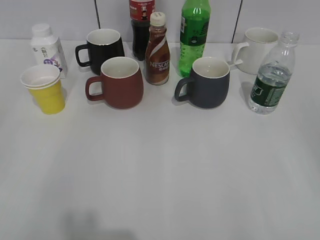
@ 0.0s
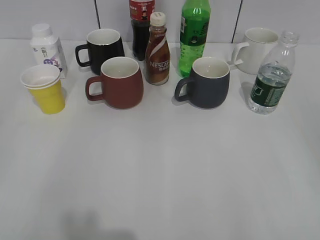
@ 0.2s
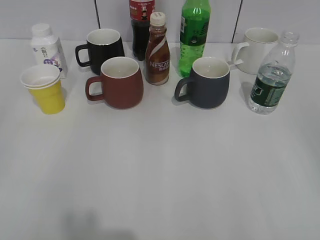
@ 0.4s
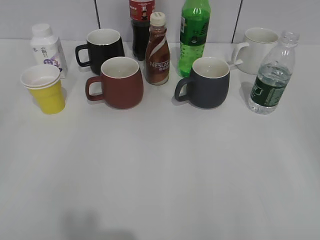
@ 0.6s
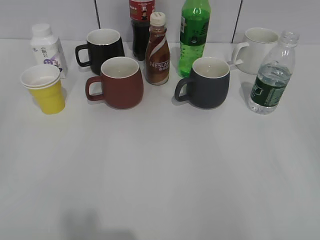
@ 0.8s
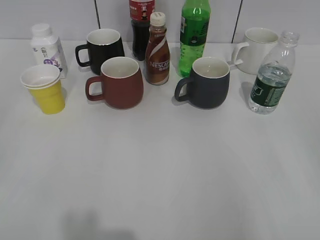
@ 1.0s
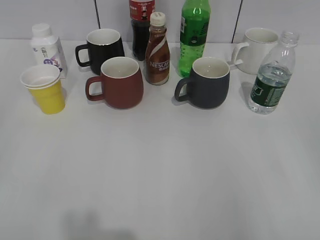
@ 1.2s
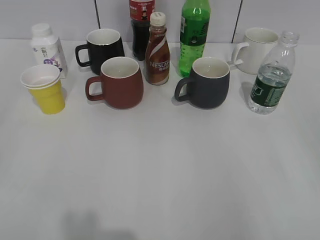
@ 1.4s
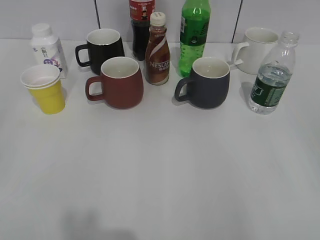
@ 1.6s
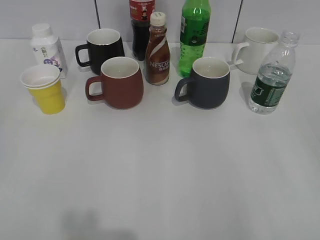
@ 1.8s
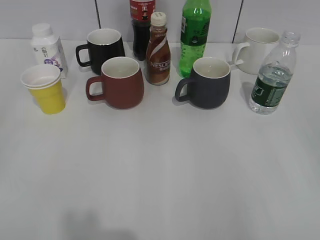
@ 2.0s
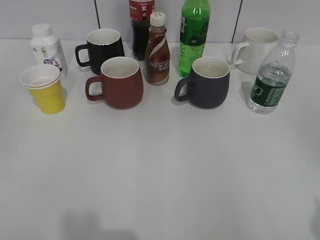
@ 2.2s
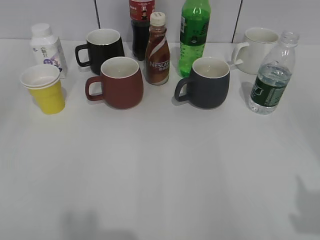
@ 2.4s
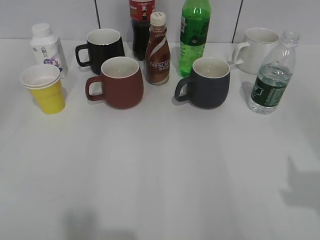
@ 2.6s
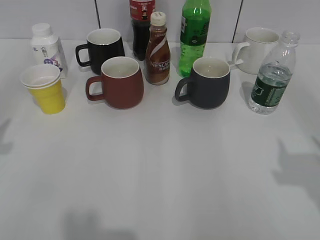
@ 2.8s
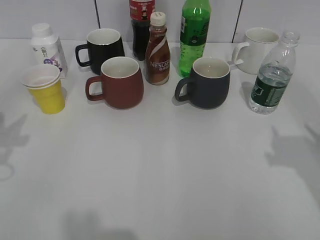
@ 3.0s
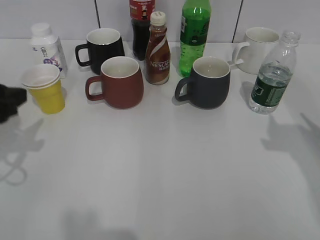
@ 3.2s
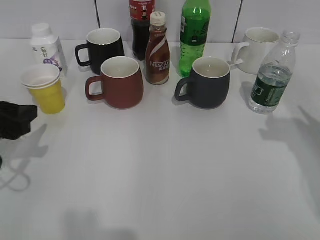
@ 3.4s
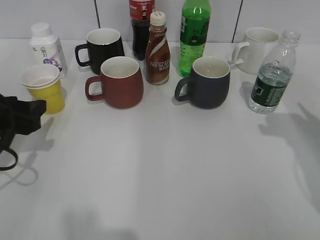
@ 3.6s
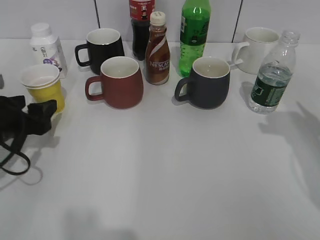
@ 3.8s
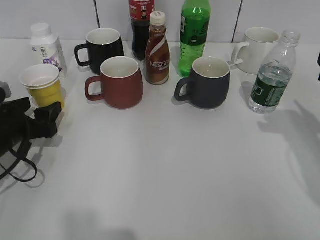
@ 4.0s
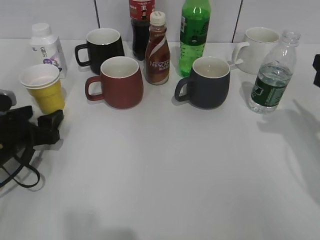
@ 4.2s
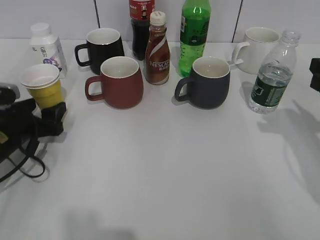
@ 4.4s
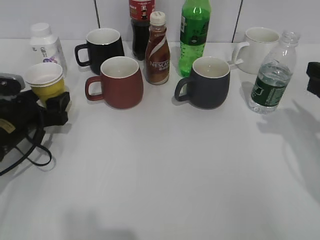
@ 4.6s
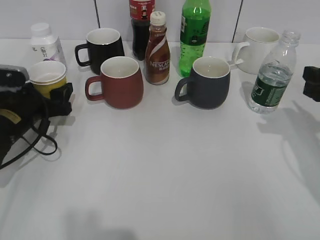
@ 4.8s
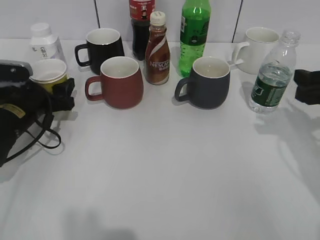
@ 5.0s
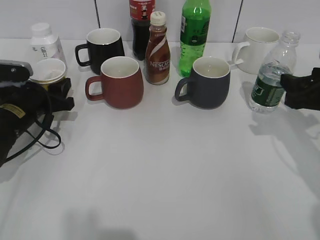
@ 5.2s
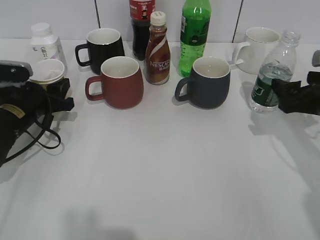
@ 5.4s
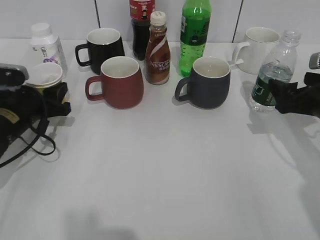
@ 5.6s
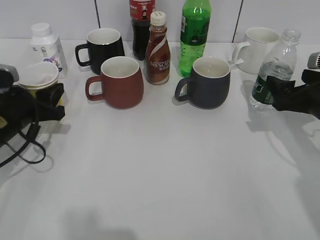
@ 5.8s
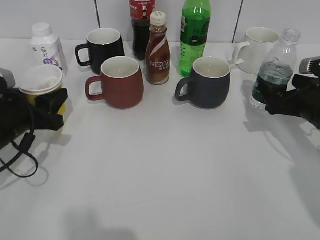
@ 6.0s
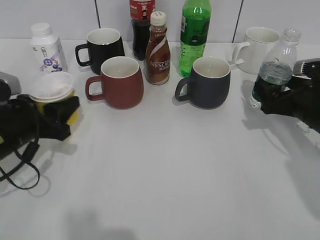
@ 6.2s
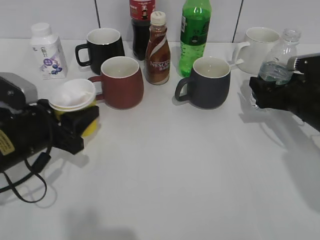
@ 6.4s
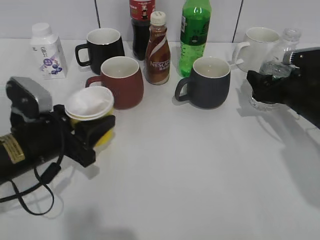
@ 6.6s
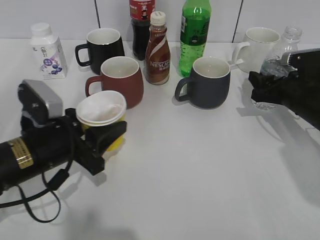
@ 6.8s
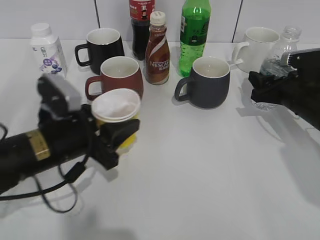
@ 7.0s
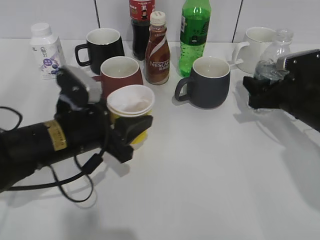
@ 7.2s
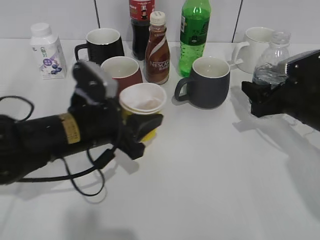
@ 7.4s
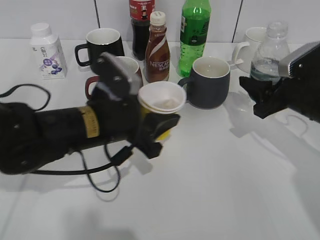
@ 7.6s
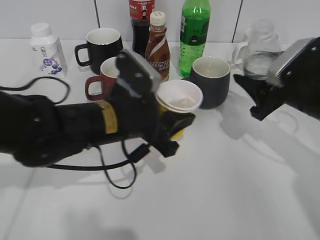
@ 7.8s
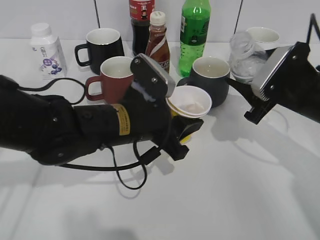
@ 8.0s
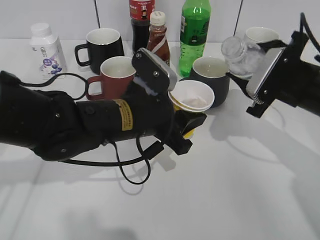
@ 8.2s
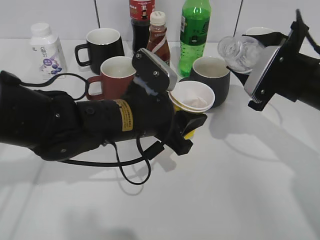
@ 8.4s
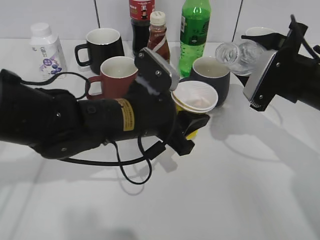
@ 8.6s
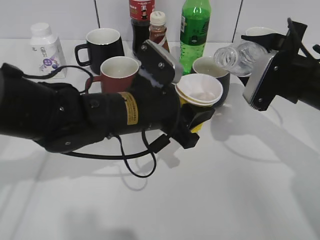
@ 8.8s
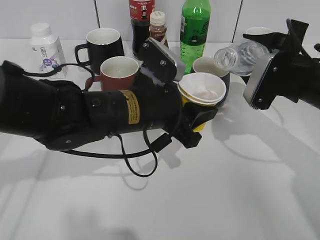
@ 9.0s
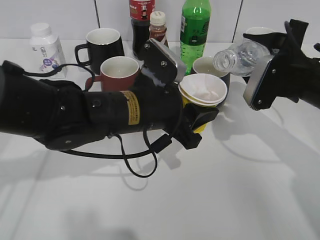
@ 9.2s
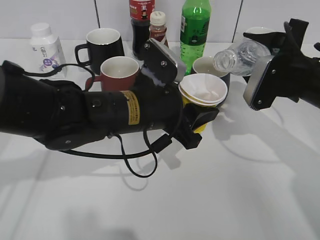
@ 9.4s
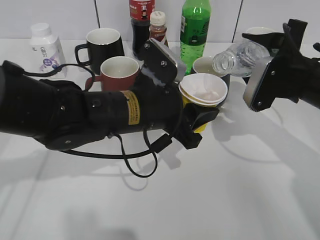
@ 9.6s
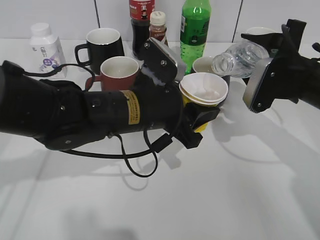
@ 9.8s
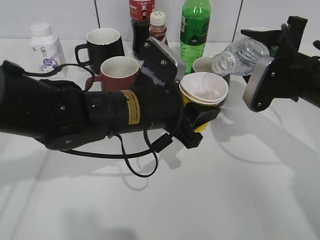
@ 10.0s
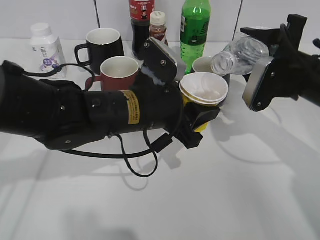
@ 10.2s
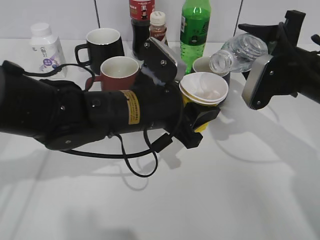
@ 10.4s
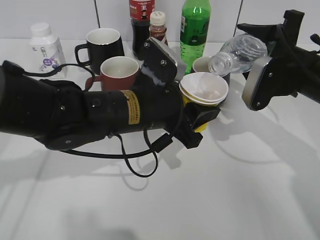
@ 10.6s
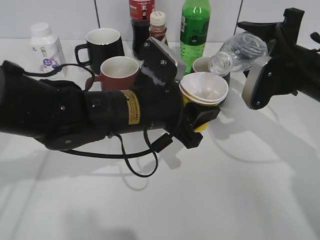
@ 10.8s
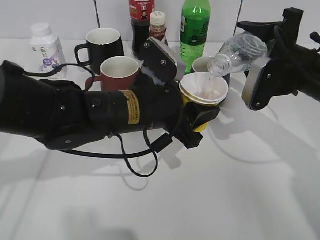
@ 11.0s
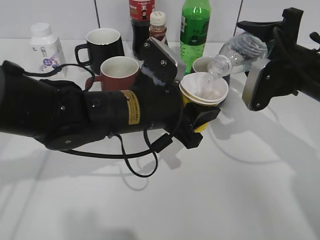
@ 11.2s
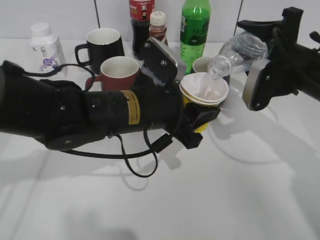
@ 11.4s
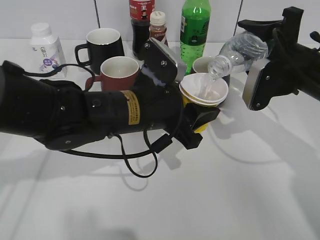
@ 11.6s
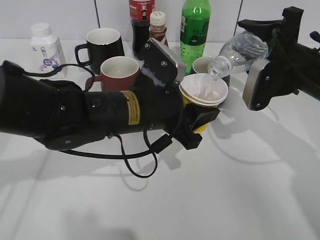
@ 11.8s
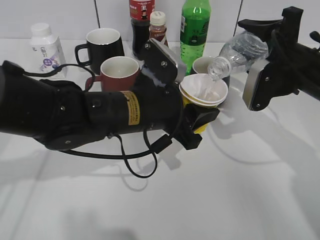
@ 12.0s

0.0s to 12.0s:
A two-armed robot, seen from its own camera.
Step, 1.8s to 5.0s: Grasp the yellow paper cup with left gripper.
Step, 5.2s to 6.6s: Grasp the bottle with water with right gripper.
1.6s to 3.0s: The right gripper moves forward, roughly 15 cm.
3.0s to 4.4s: The right gripper travels forward and downward by some 10 cm, and closes. Meanwhile the left gripper goes roughly 20 cm downward and forward, and opens its fingers.
4.4s to 6.0s: The right gripper is displaced downward by roughly 10 cm, and opens. The left gripper closes up.
6.0s to 7.6s: The right gripper closes, while the left gripper heads to the right, covering about 15 cm.
7.6s to 9.0s: The left gripper goes approximately 5 cm to the right.
9.0s to 10.4s: The grippers move only a little.
10.4s to 12.0s: The grippers make only small movements.

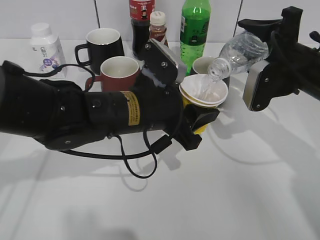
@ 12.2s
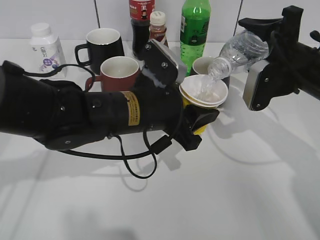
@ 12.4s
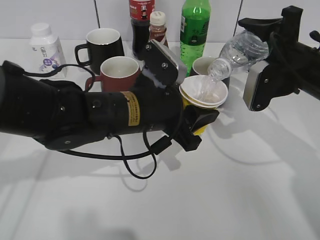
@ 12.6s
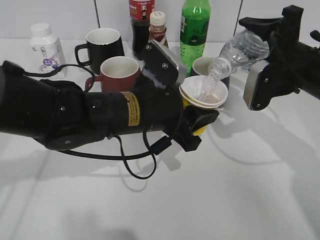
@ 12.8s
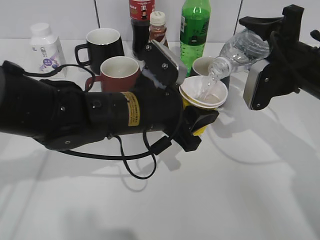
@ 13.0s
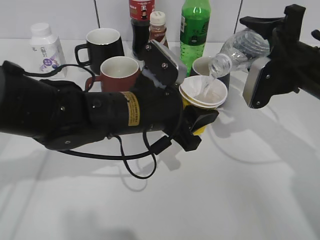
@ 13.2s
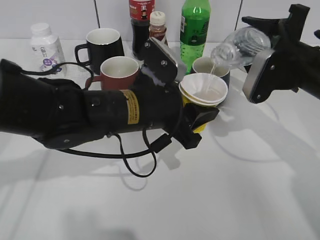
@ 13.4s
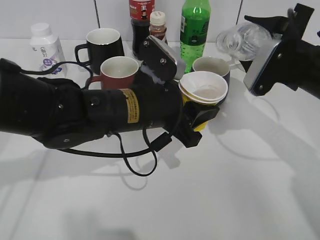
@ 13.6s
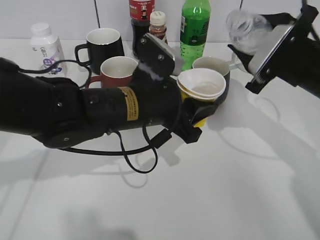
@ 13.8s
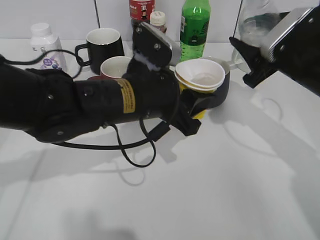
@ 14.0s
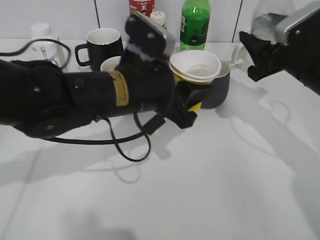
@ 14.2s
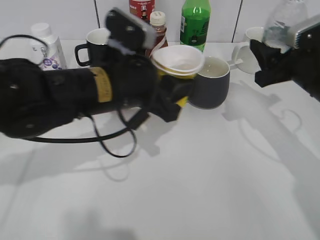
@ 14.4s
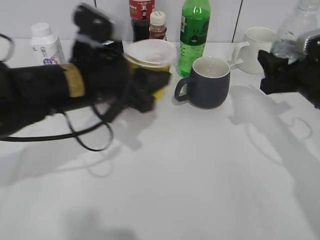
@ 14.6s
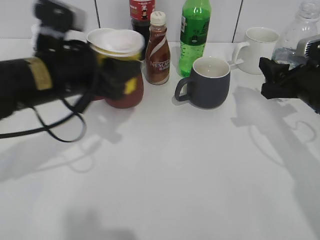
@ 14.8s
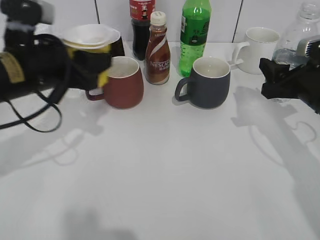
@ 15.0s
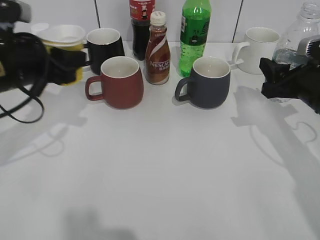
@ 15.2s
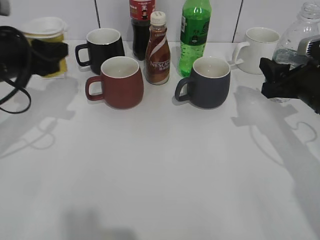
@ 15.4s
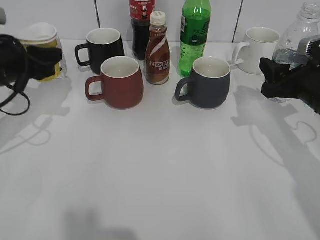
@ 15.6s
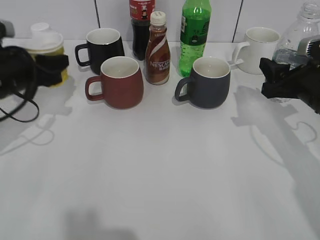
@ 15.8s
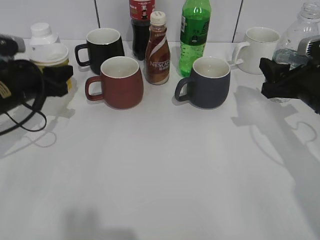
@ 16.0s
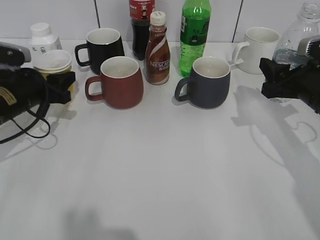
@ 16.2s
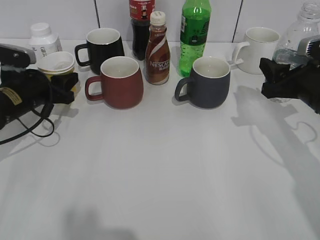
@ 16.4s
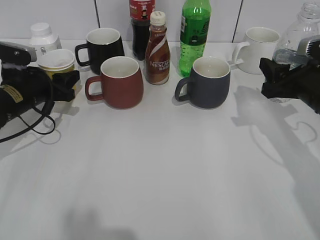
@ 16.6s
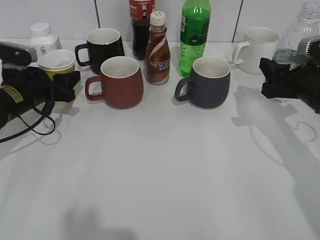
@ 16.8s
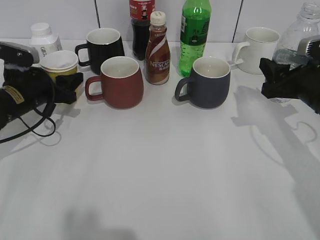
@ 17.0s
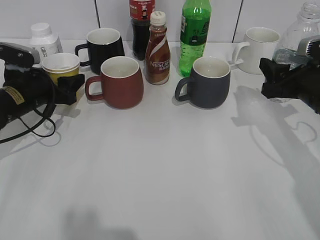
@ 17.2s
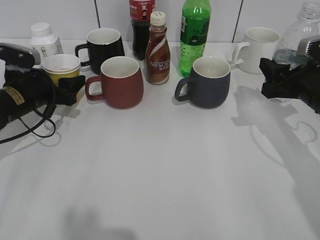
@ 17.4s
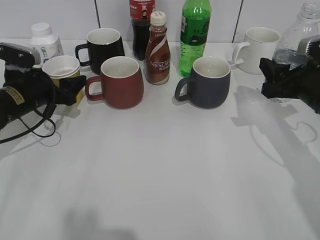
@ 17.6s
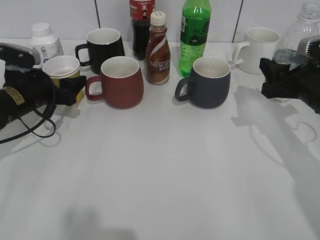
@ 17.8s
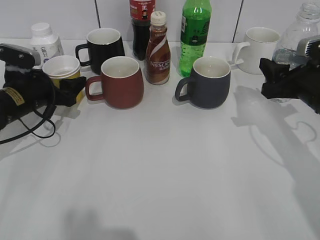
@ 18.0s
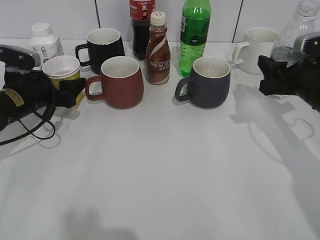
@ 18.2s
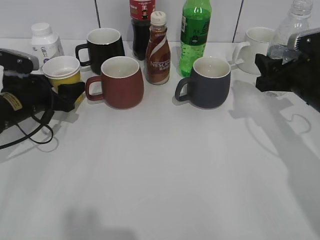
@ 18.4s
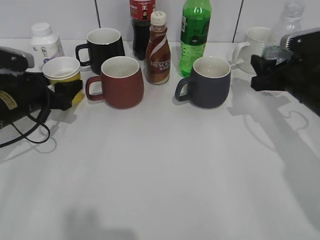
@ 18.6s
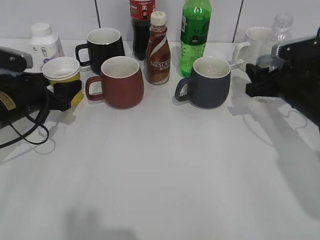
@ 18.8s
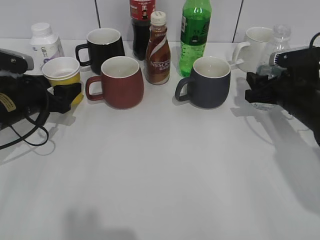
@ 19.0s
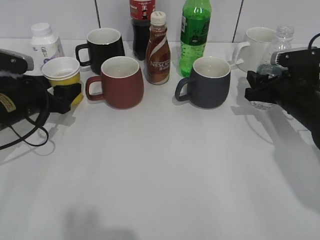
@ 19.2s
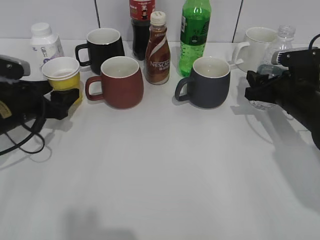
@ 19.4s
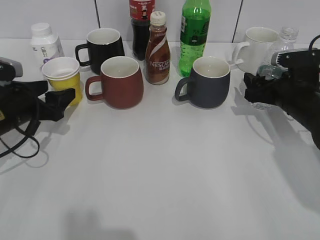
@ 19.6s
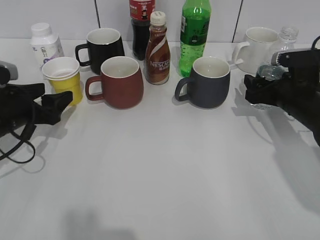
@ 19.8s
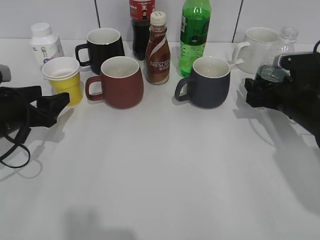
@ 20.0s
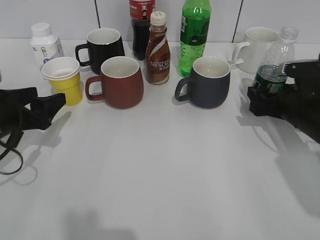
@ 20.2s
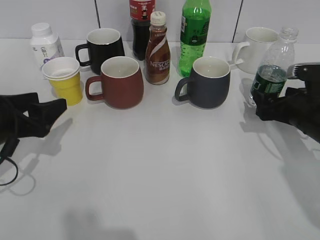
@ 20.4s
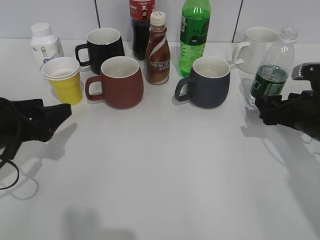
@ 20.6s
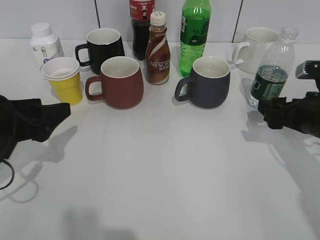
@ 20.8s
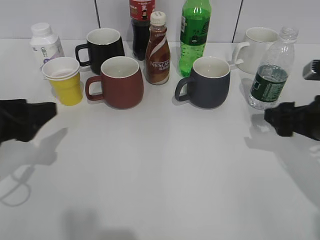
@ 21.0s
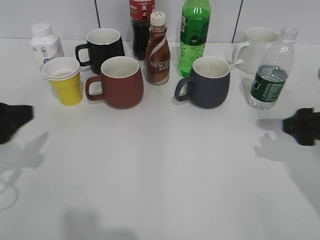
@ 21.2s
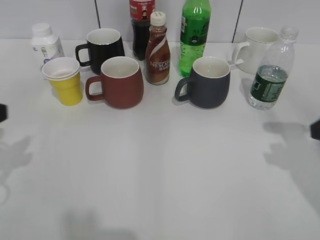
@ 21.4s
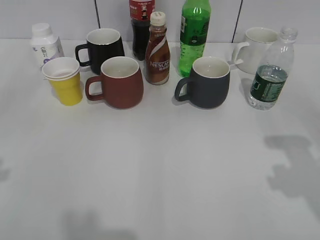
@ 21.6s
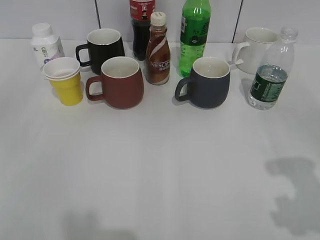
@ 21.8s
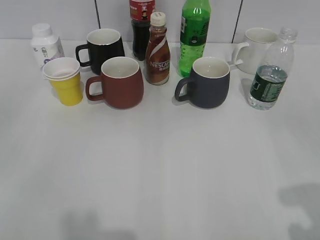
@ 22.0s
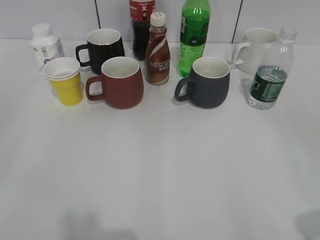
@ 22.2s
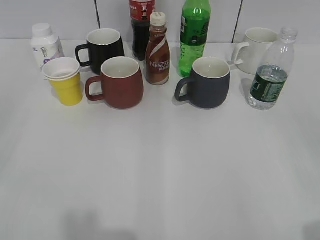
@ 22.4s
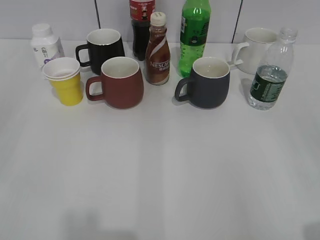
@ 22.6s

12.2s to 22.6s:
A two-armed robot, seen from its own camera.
Step, 14.0s to 18.2s: Place the yellow paper cup on the table with left gripper.
Step, 18.6s to 20.0s: Place the water bottle on the table with right gripper.
13.6s to 15.2s: The left gripper heads to the left, covering approximately 15 cm. The right gripper shifts by some 5 cm.
15.2s to 16.6s: The left gripper is displaced downward and forward by approximately 10 cm.
16.6s to 18.2s: The left gripper opens up.
18.2s to 19.6s: The right gripper goes about 5 cm downward, and opens.
19.6s to 21.2s: Both grippers move backward and upward, roughly 15 cm.
21.2s to 22.6s: The grippers both shift backward and upward by some 20 cm.
